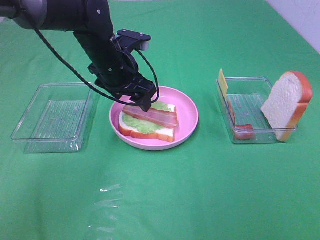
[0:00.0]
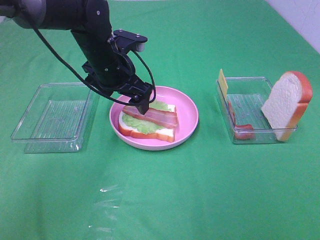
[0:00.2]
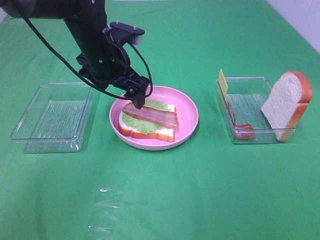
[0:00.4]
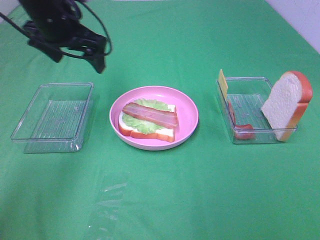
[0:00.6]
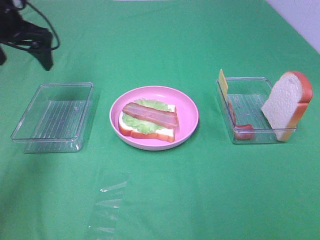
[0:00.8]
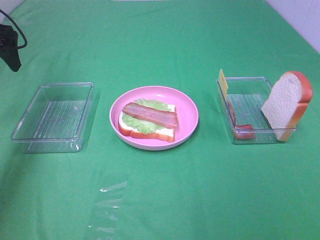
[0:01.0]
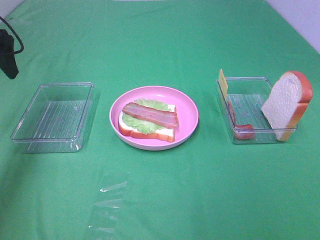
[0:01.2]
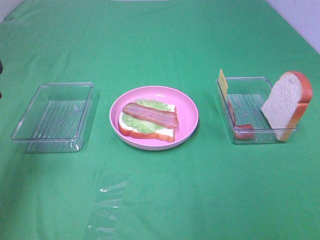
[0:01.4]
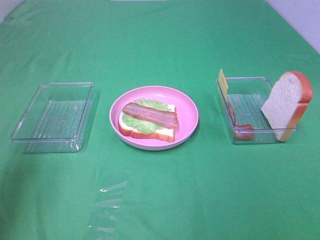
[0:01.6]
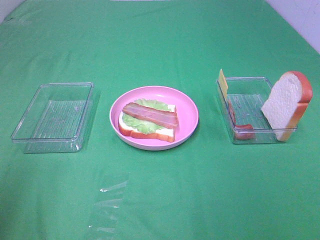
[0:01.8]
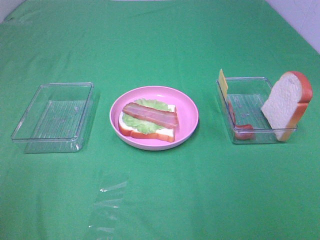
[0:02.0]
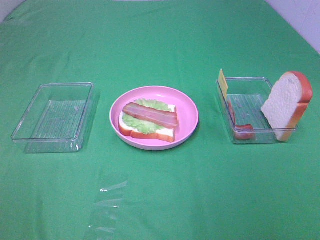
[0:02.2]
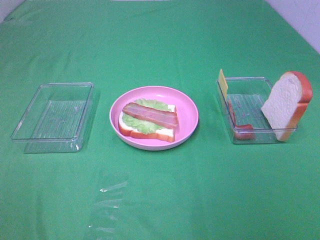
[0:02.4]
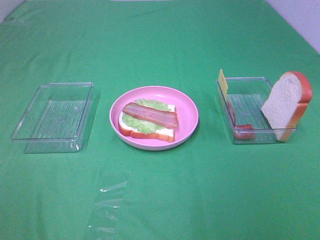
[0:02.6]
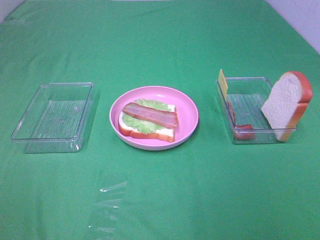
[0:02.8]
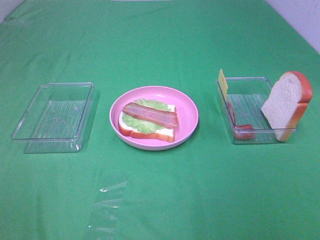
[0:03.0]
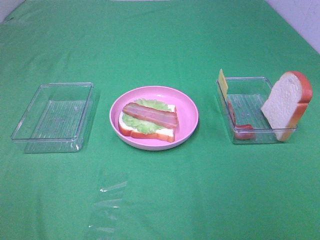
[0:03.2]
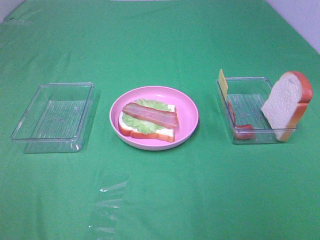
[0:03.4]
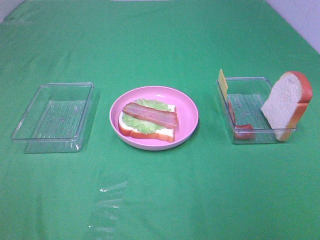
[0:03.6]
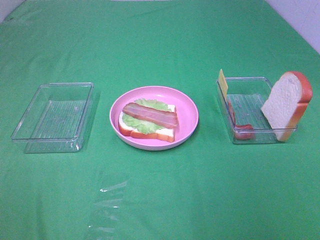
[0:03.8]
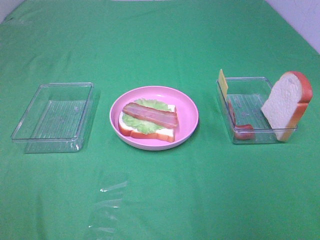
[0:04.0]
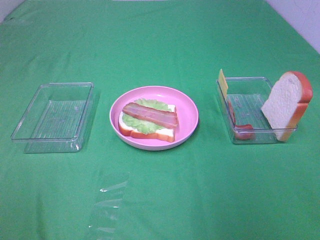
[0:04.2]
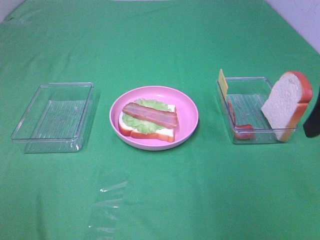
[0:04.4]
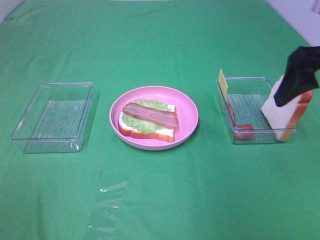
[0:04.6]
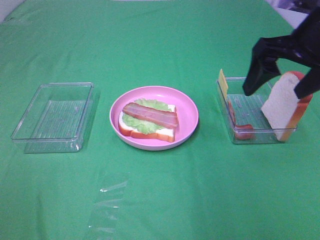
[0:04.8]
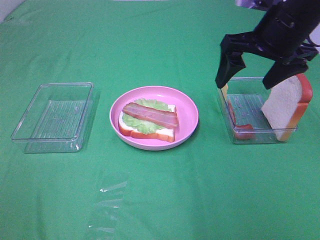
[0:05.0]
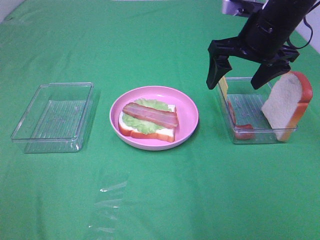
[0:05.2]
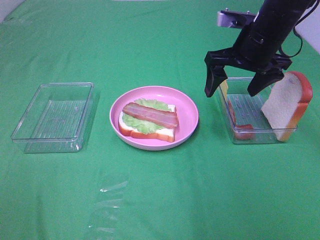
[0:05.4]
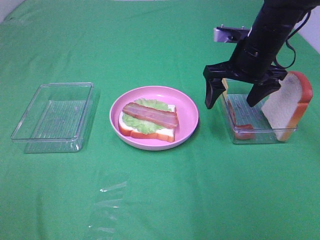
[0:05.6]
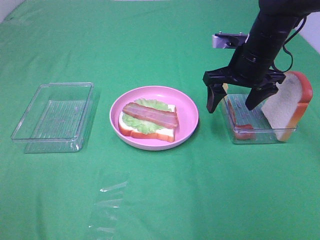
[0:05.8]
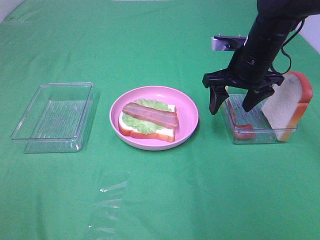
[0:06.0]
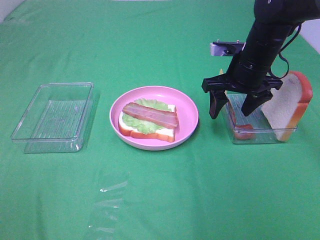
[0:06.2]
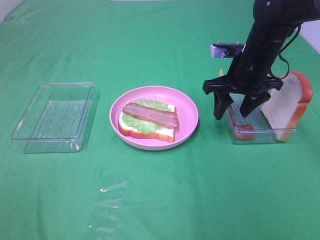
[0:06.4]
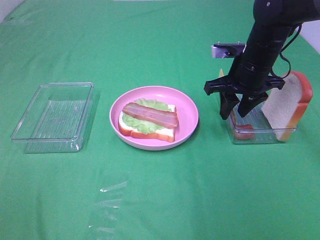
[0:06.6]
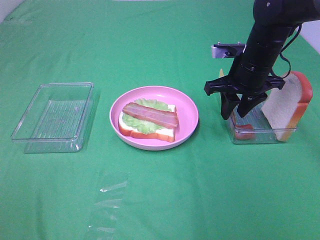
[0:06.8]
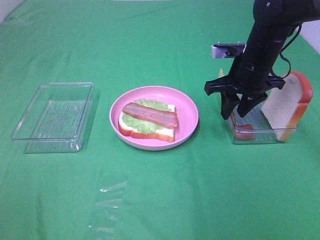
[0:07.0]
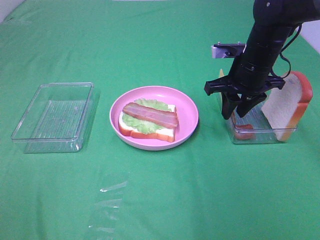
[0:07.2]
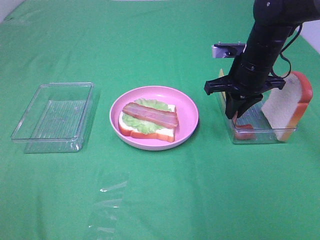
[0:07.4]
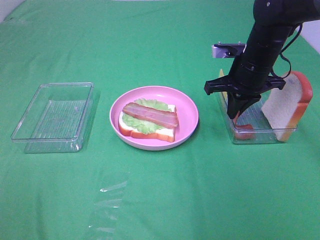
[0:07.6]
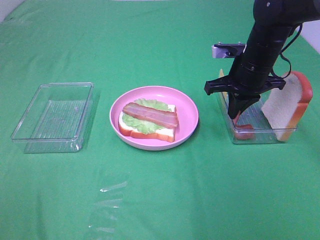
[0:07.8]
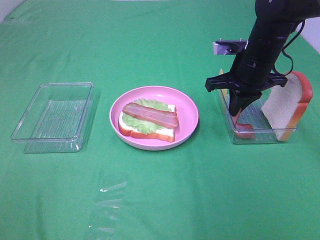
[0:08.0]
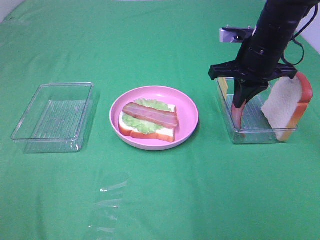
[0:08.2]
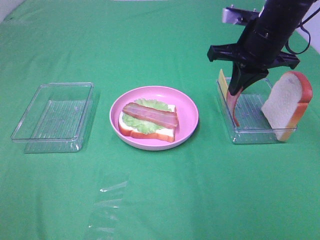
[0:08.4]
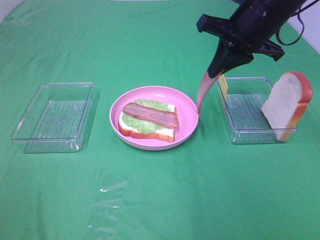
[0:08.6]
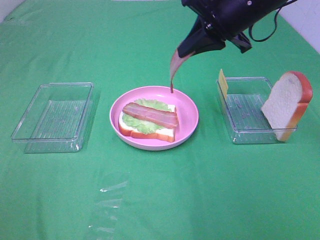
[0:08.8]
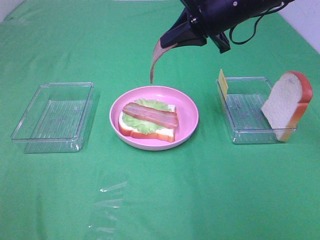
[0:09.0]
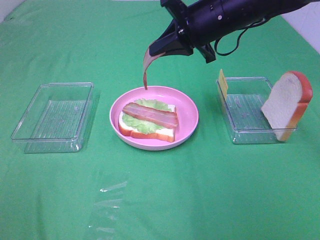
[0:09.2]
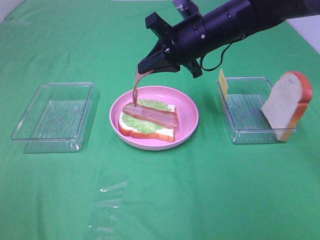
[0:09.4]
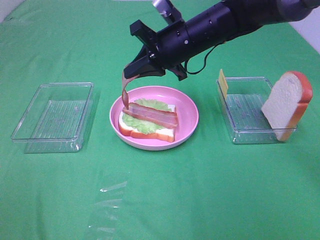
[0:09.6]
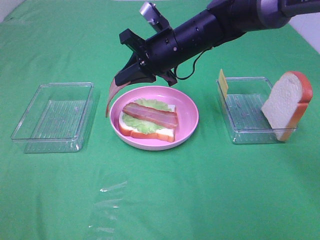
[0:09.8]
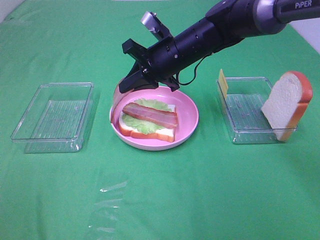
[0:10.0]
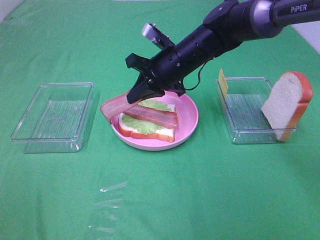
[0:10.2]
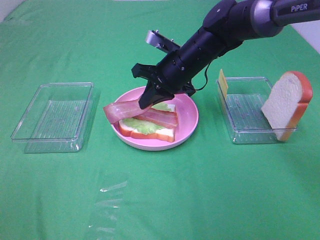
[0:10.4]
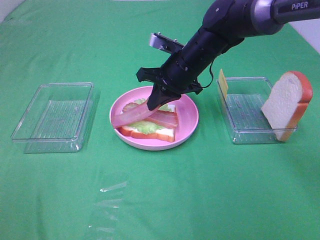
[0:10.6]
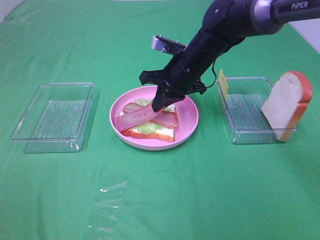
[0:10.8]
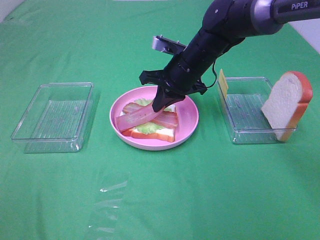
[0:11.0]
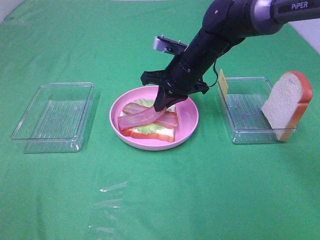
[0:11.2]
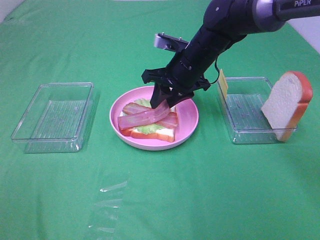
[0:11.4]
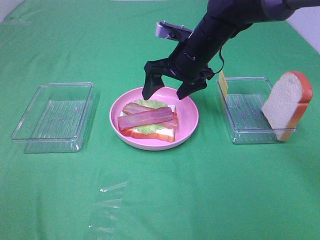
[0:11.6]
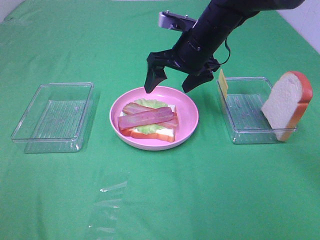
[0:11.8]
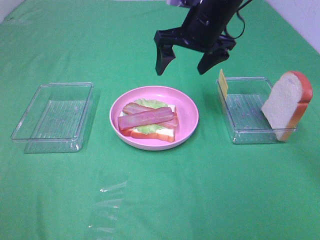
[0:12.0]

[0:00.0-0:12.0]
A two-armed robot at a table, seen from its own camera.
Task of the whole recording: Make sandwiches.
Step, 0:00.2 to 0:07.6: Right hand:grab the bacon.
Step, 0:07.8 to 0:11.4: Right hand:place bacon on bacon.
0:00.0 to 0:01.6: The left gripper moves to the left, backward and upward, about 35 cm.
0:01.6 to 0:03.0: The left gripper moves backward, about 20 cm.
0:04.4 to 0:06.0: The right gripper moves forward, downward and to the left, about 25 cm.
0:06.0 to 0:07.6: The right gripper closes up.
0:07.6 to 0:09.0: The right gripper shifts some 10 cm upward and to the left.
0:09.0 to 0:10.4: The right gripper moves downward and to the left, roughly 15 cm.
0:10.4 to 0:12.0: The right gripper shifts approximately 10 cm upward, and opens its fingers.

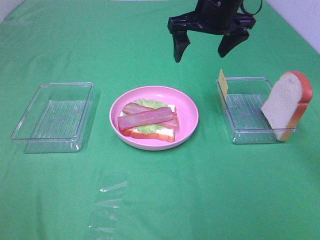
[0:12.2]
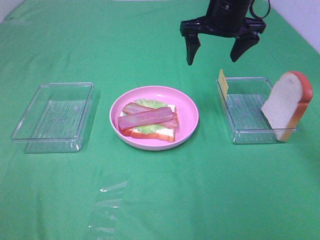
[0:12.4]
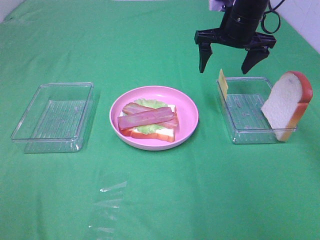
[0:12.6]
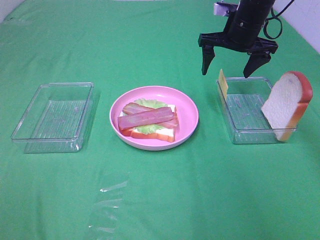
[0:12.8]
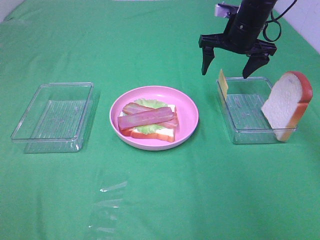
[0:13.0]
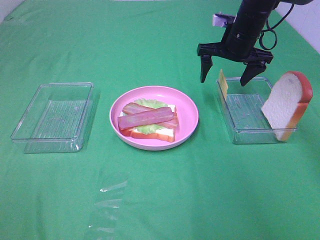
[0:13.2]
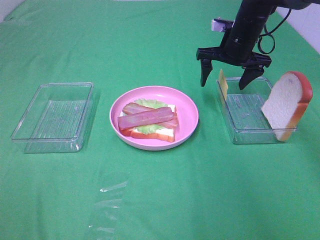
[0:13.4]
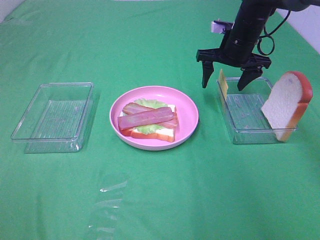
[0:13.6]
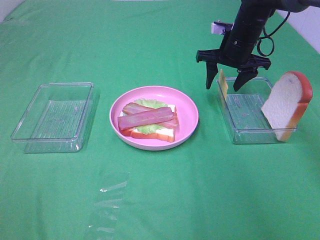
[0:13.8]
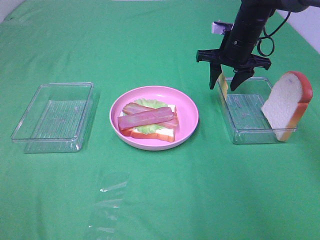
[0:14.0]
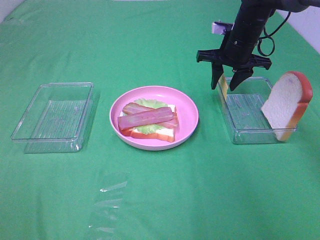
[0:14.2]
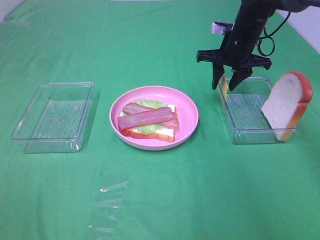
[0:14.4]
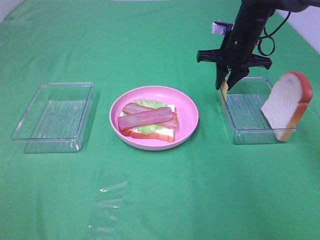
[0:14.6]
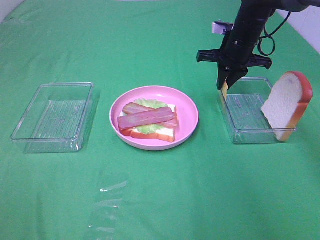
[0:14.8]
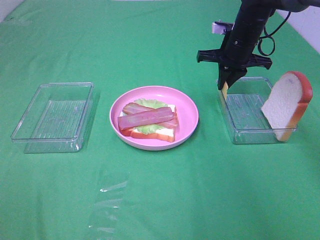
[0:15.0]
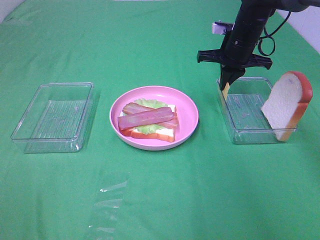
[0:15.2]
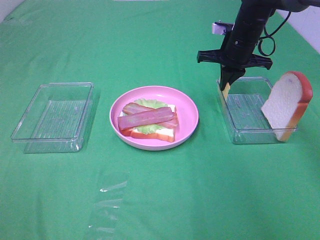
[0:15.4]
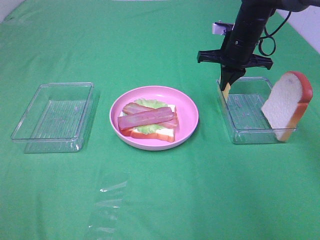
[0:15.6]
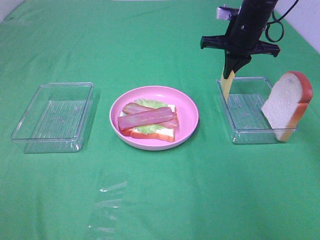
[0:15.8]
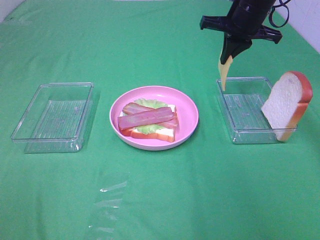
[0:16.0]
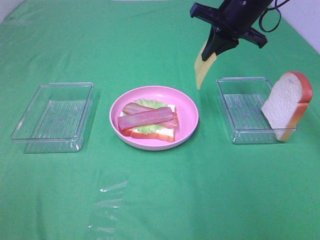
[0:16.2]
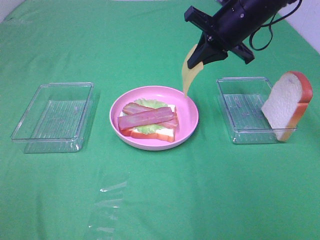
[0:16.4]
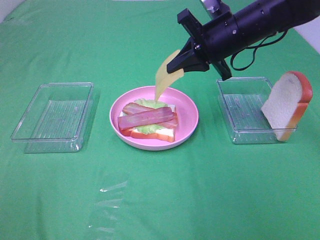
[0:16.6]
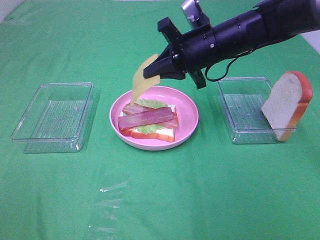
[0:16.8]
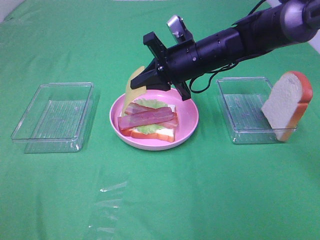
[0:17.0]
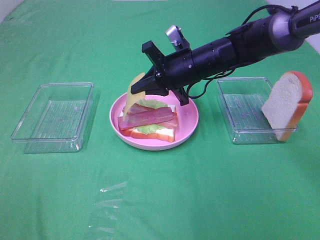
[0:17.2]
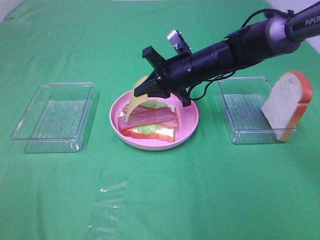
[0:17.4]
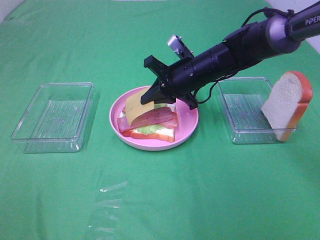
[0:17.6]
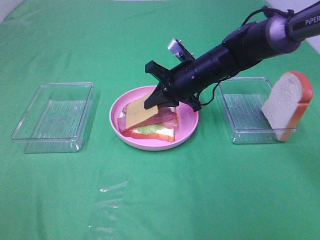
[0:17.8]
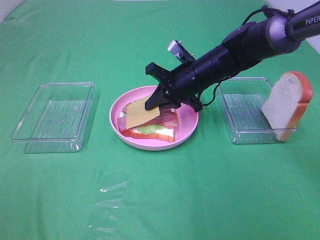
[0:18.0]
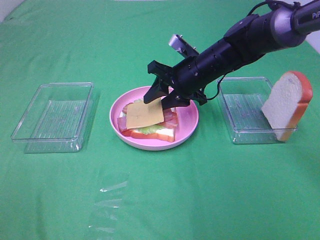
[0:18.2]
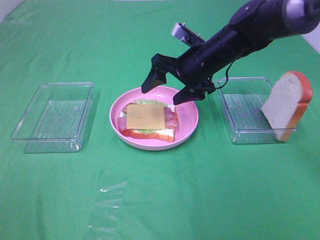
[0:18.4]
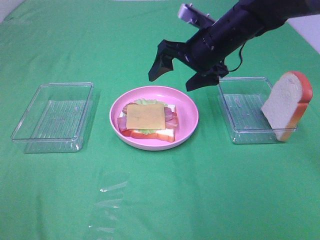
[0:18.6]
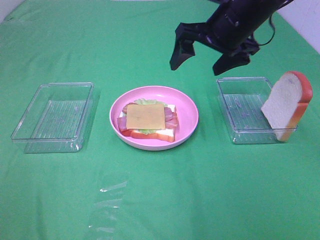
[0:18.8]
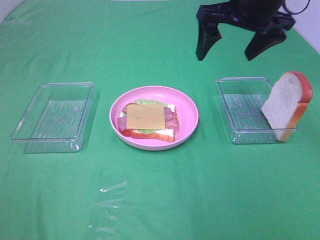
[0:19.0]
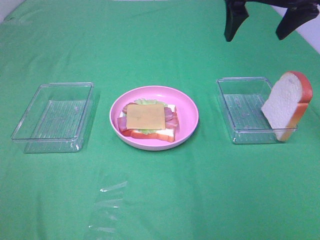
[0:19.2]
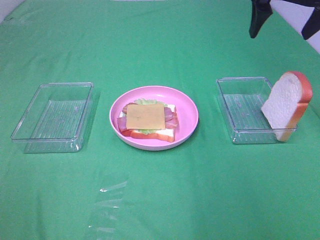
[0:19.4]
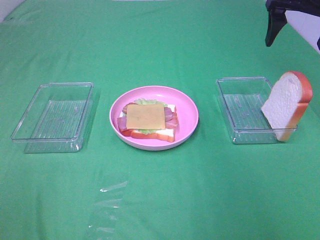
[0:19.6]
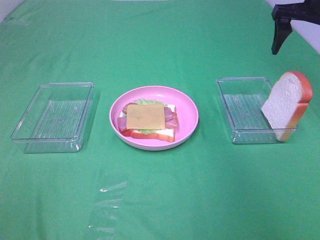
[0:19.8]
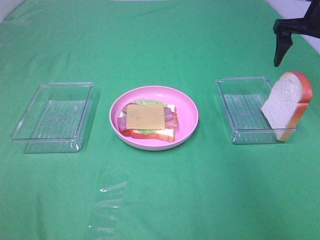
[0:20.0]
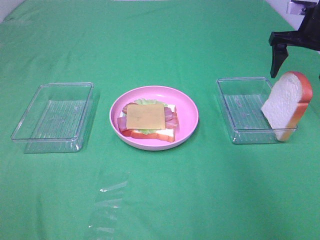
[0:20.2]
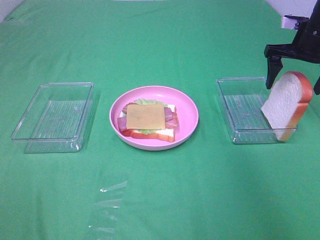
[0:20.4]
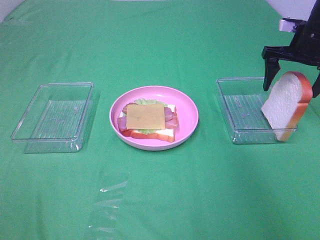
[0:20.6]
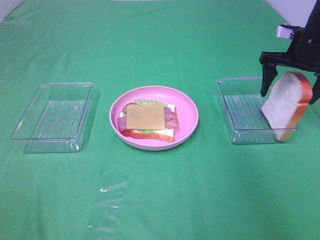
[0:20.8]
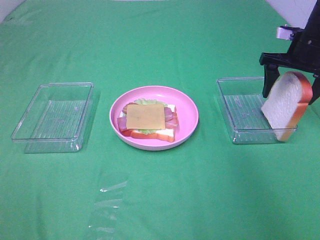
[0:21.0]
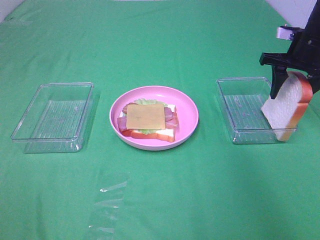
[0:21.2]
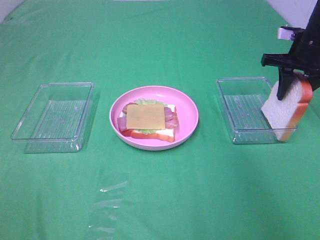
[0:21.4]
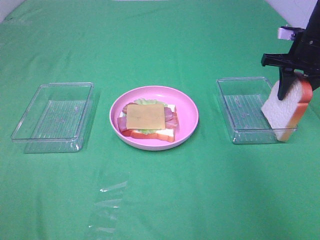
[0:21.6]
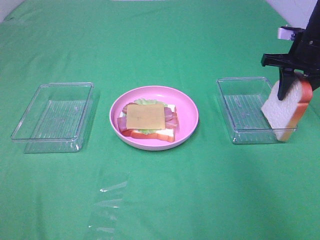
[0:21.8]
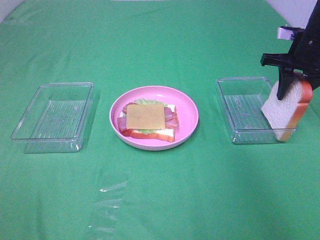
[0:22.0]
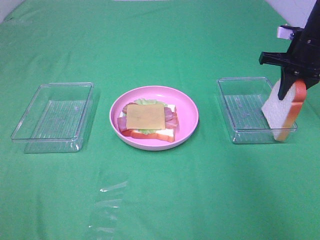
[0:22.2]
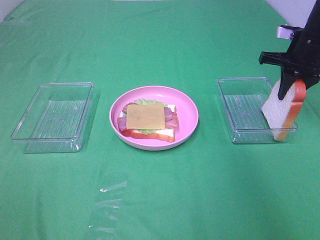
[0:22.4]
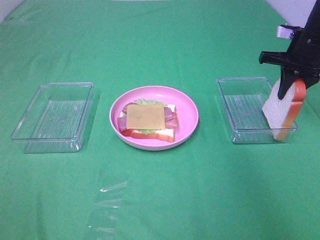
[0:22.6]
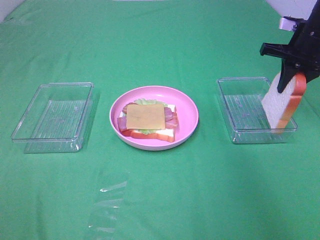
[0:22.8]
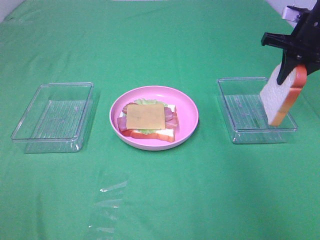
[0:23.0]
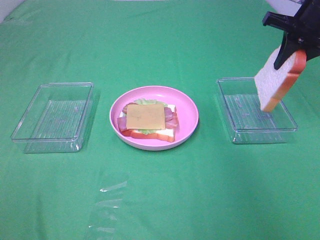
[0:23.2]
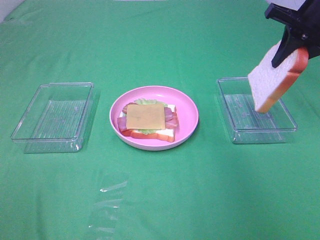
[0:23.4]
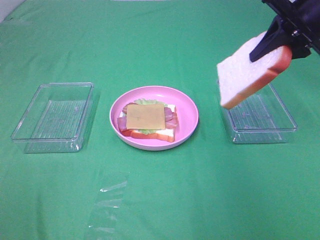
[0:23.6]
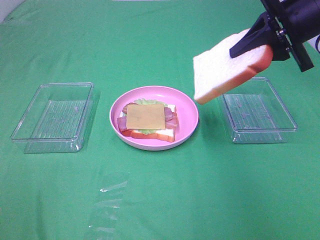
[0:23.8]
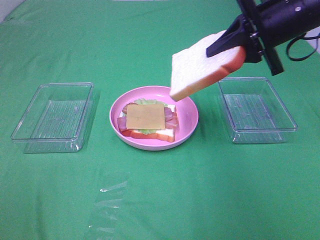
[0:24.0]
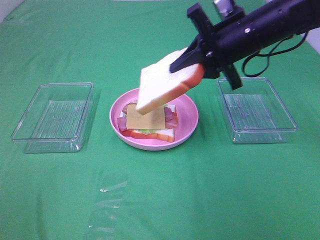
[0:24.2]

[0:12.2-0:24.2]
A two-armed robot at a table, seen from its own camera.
Task of the whole recording: Make sandwiches.
Step, 0:12.2 to 0:15.2: Right hand:grab the cheese slice.
Step, 0:15.4 to 0:18.2: Right hand:place the cheese slice on top of the bacon.
Step, 0:18.4 to 0:22.2: Right hand:grab the bread slice.
0:12.2 to 0:13.8: The right gripper heads downward, to the right and forward, covering some 15 cm.
0:13.8 to 0:15.2: The right gripper closes.
0:15.2 to 0:16.6: The right gripper moves backward, some 10 cm.
0:16.6 to 0:18.2: The right gripper heads downward, covering roughly 10 cm, and opens.
0:18.2 to 0:19.8: The right gripper heads to the right and upward, covering about 25 cm, and opens.
0:19.8 to 0:21.2: The right gripper moves downward, about 10 cm, and closes its fingers.
0:21.2 to 0:22.6: The two grippers keep their place.
0:22.6 to 0:24.2: The right gripper moves to the left and backward, approximately 15 cm.
